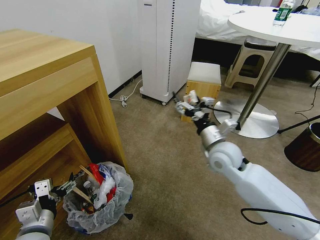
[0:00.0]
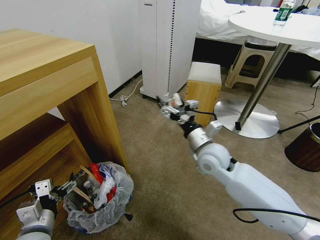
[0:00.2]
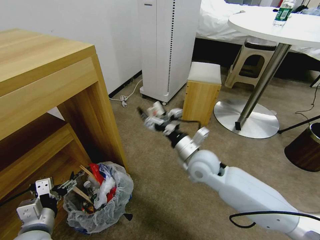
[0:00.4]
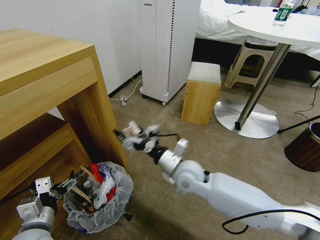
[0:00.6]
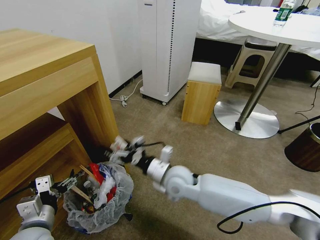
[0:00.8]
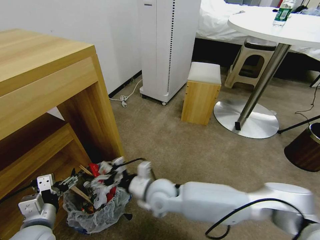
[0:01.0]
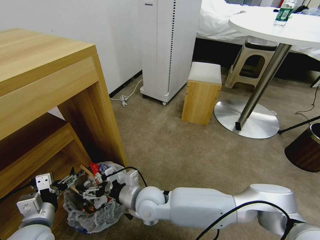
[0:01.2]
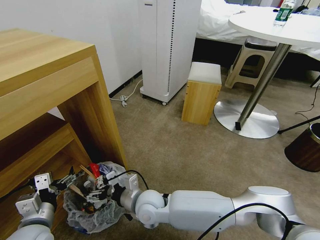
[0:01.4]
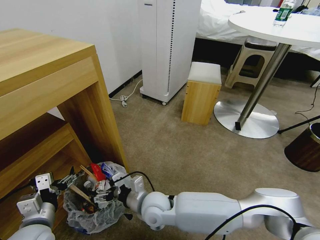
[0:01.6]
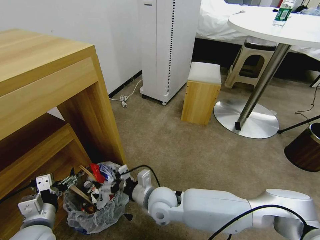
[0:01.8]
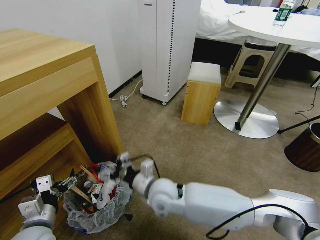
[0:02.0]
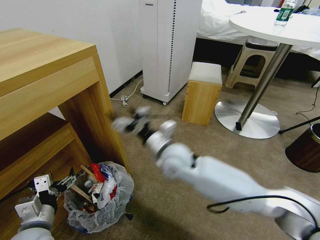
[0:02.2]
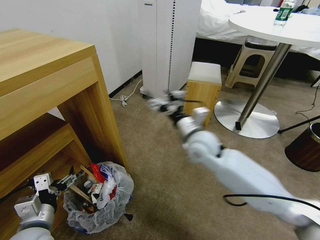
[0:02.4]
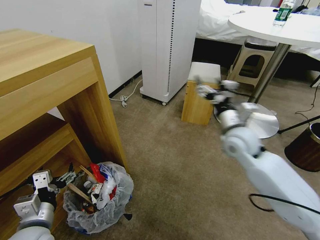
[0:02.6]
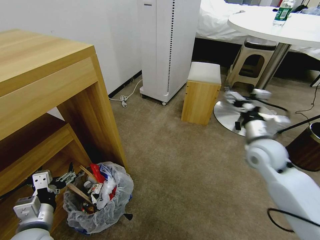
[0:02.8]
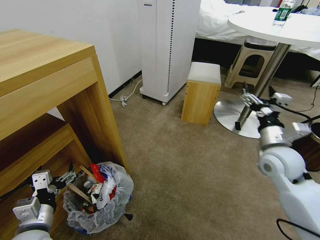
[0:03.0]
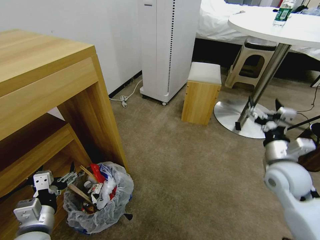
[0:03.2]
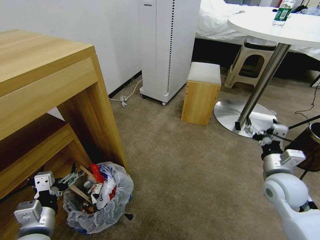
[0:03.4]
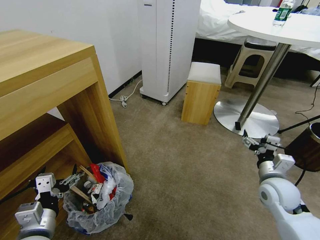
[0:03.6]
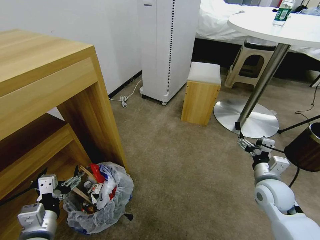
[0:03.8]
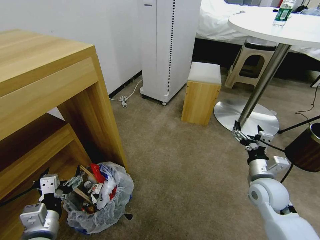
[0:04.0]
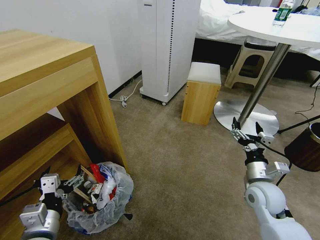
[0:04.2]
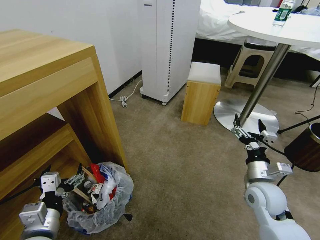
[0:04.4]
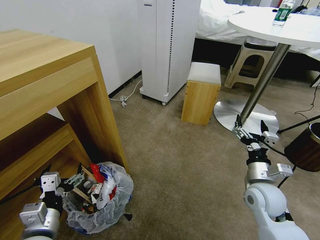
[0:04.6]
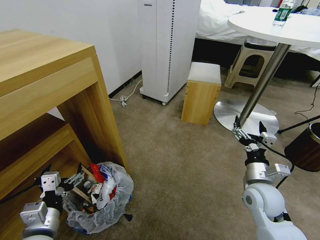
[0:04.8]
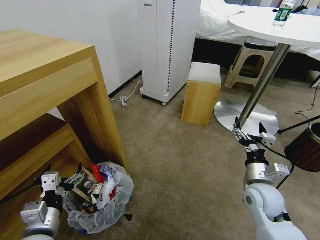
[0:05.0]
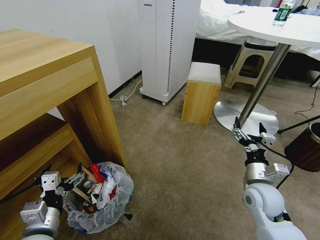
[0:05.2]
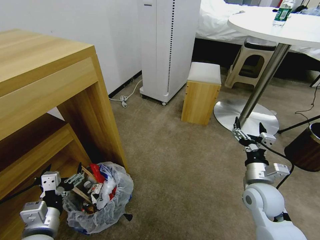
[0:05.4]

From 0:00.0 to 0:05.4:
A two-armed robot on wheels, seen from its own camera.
Task of the whole recording: Pick up the trash bin and place the garbage on the floor into it.
From 0:00.0 to 0:01.4: The right gripper travels to the left, downward and backward by approximately 30 cm.
From 0:01.4 to 0:02.8: The right gripper shifts about 35 cm to the right and upward.
From 0:02.8 to 0:04.0: The right gripper is displaced downward and backward by approximately 15 cm.
From 0:04.0 to 0:05.4: The grippers stay close to where they were, moving slightly.
